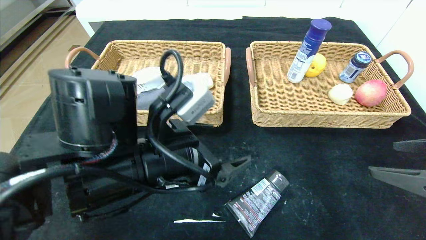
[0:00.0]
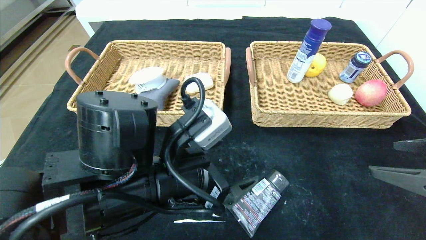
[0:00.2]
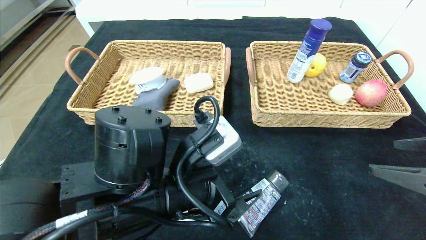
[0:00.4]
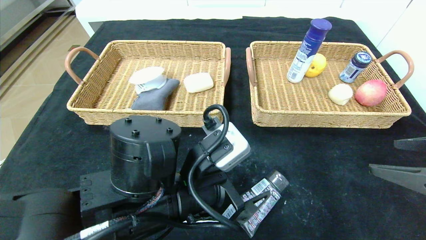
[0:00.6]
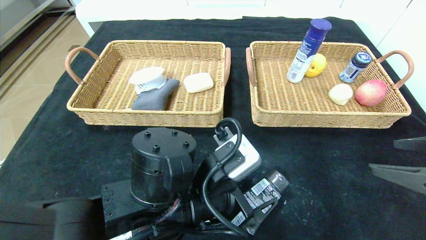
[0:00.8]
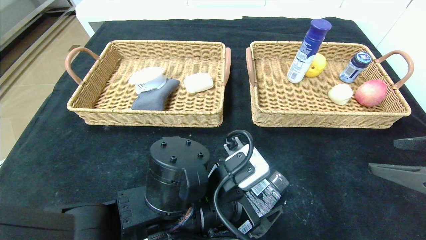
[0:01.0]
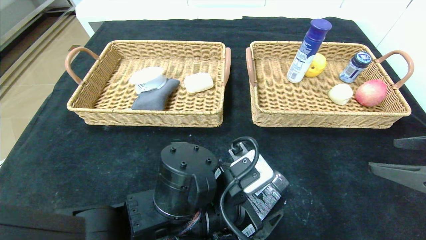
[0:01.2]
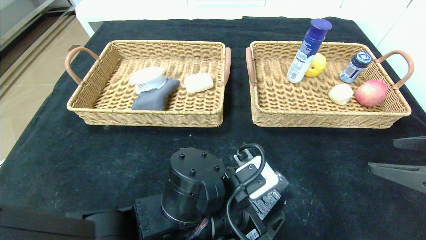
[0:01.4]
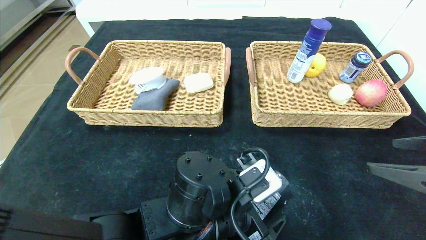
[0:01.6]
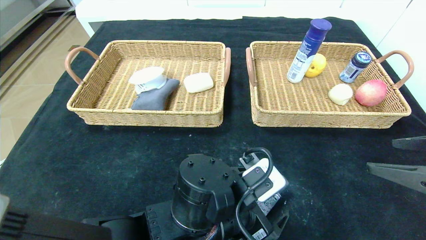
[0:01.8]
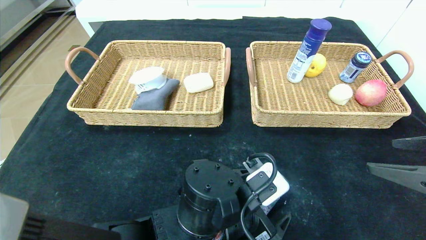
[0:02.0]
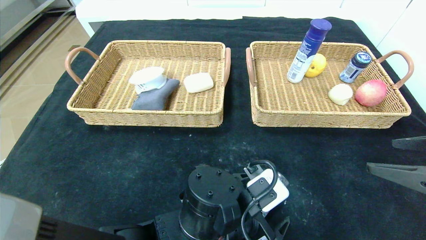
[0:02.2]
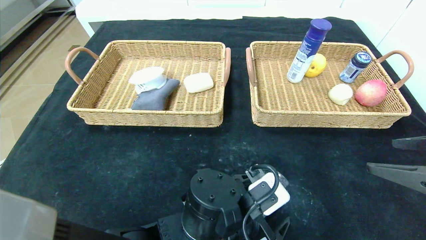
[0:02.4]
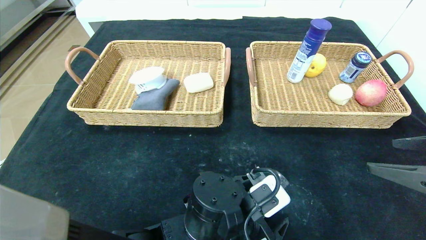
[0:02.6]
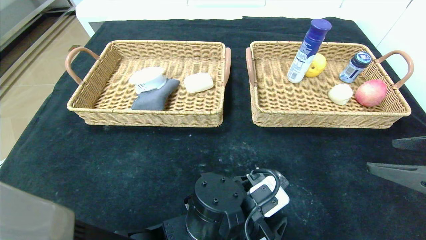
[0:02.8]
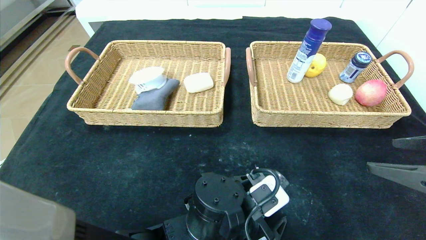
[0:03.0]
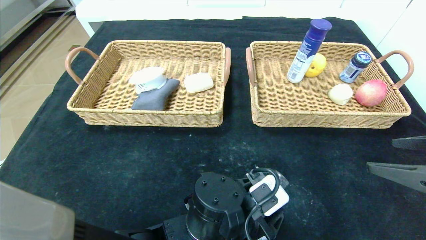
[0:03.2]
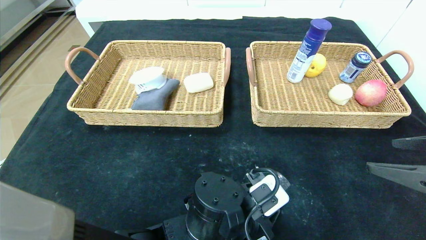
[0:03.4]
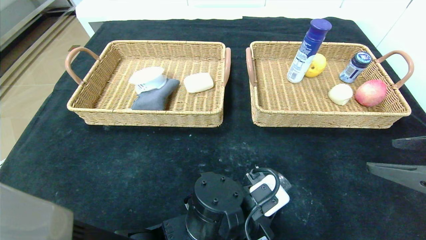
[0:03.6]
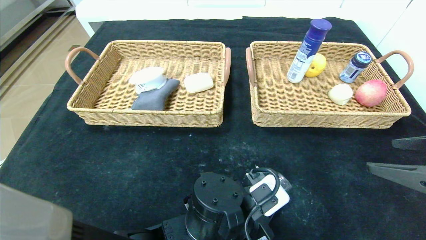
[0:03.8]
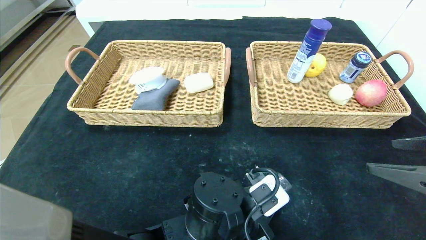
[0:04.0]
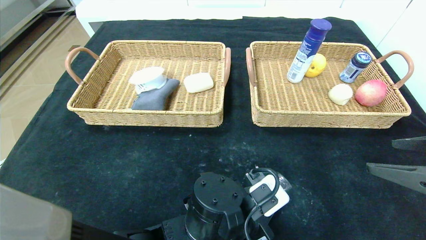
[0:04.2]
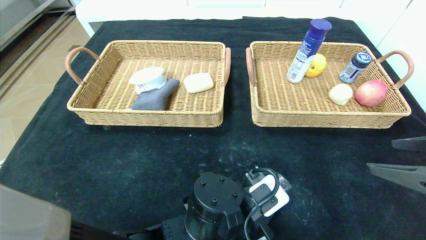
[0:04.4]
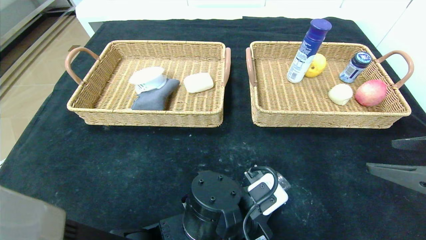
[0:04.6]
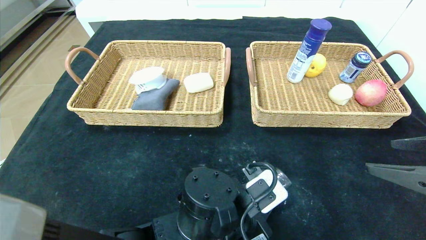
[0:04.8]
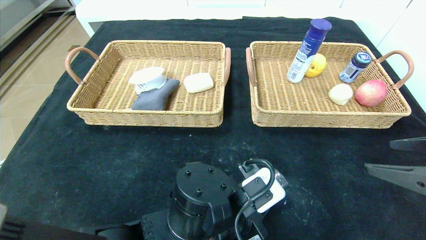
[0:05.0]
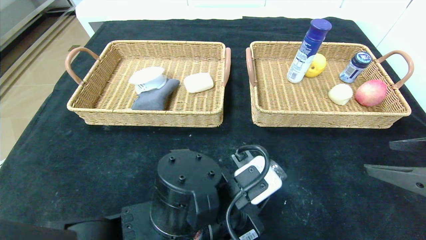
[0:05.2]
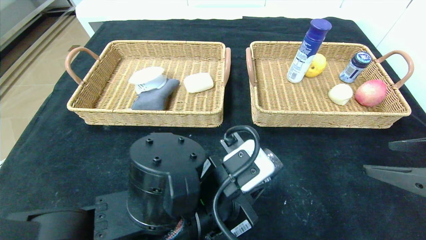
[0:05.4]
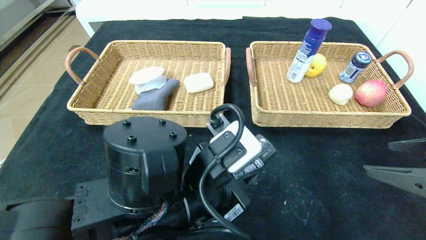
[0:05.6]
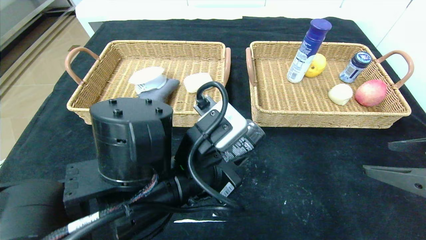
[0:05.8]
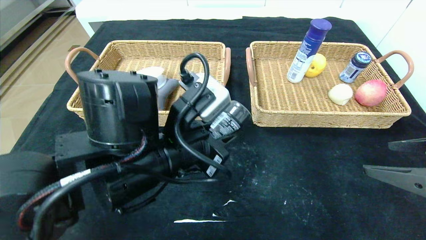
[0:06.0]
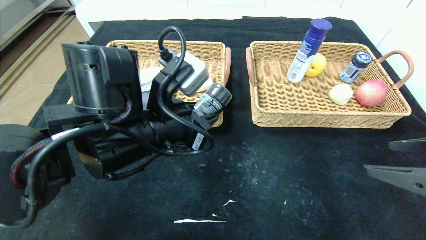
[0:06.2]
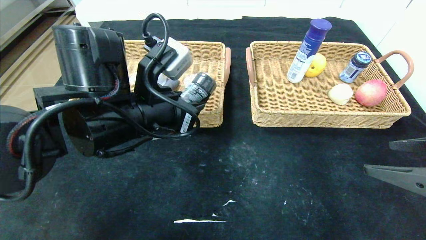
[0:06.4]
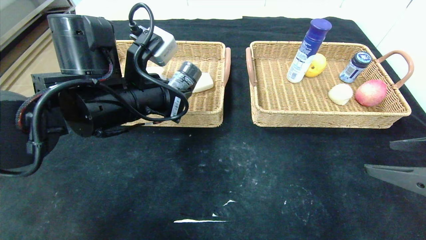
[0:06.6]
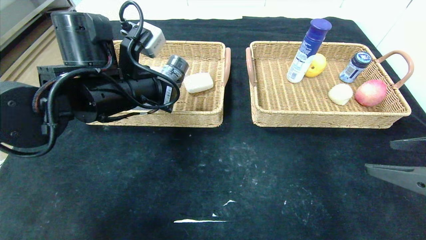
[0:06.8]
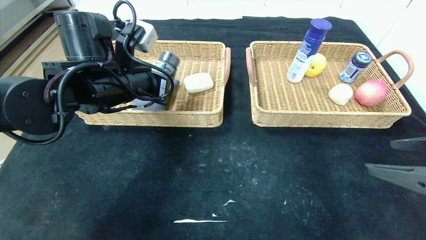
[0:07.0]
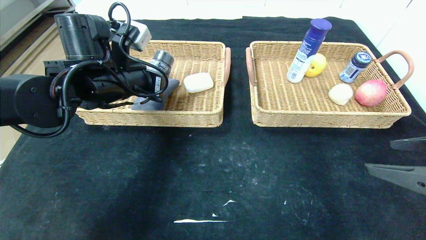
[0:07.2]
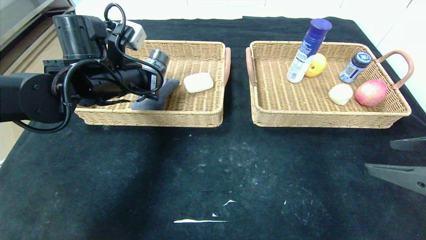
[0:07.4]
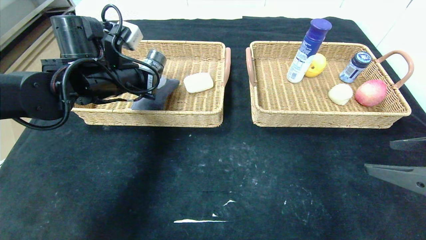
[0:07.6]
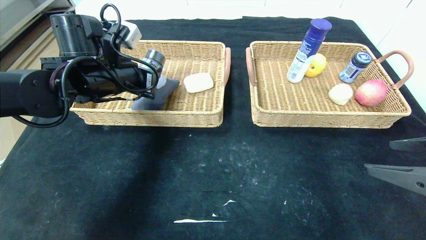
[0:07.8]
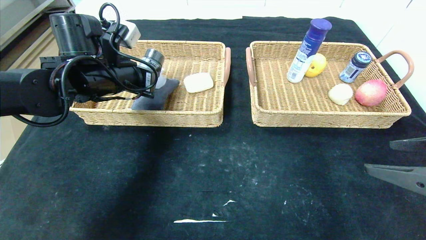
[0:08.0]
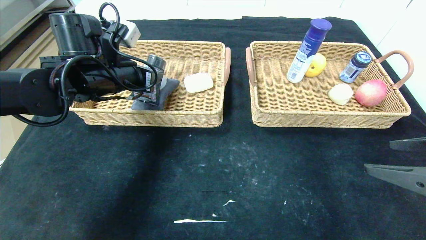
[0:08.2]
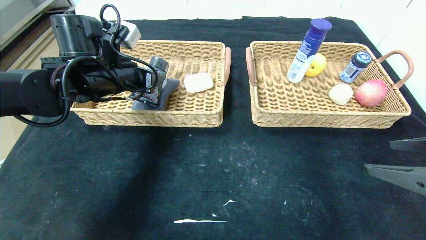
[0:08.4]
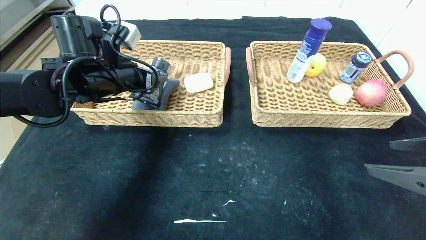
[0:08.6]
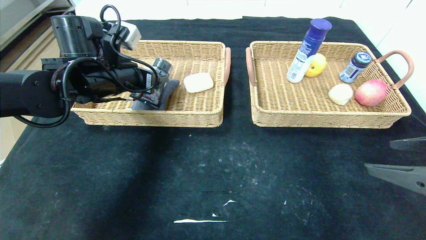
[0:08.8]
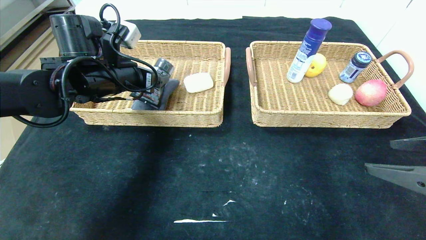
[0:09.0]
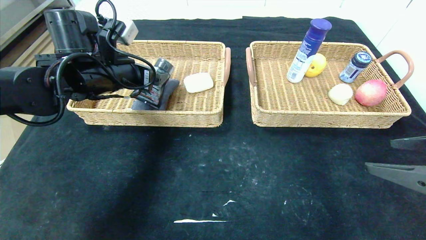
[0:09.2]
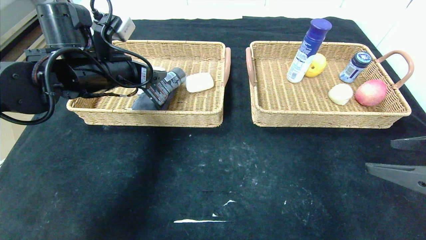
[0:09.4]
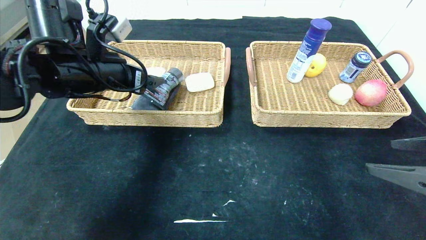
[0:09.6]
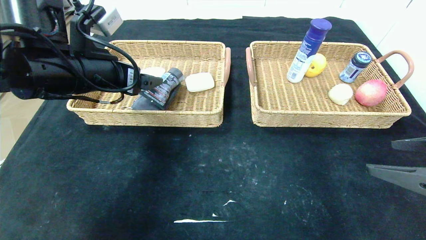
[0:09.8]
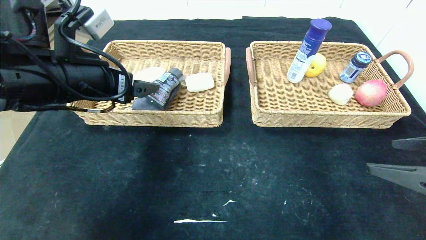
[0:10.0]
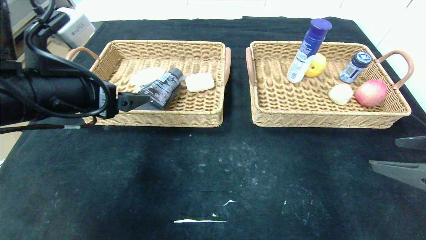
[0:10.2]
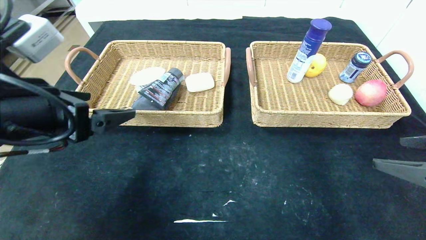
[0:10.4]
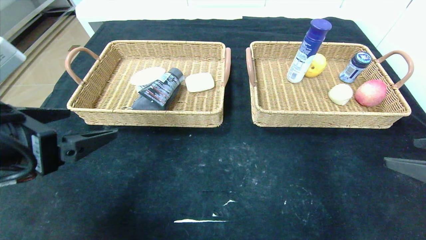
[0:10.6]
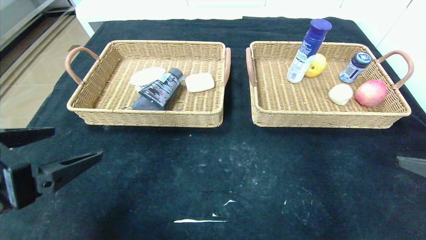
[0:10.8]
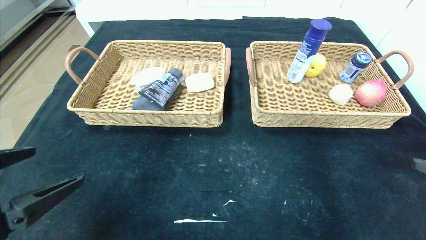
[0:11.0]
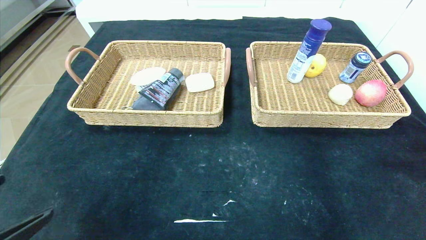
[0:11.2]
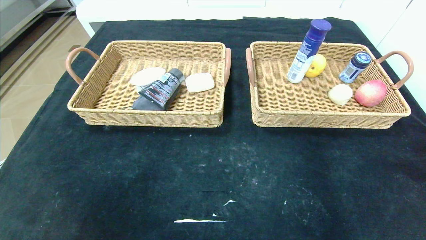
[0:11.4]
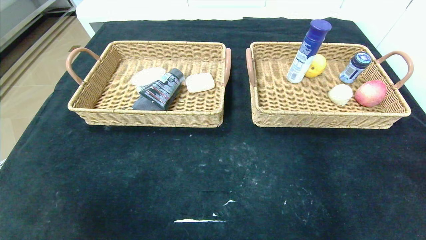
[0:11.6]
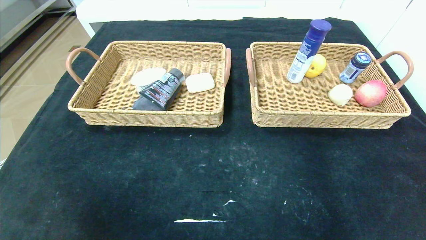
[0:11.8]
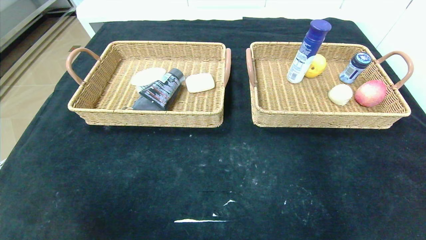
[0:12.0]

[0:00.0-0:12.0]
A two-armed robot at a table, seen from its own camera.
Step, 0:00.2 to 0:10.6: Pick up the soft cleanser and put it in the left basket.
0:00.0 to 0:01.6: The left gripper moves downward and to the right, some 10 cm.
0:01.6 to 0:03.0: The grippers make only small movements.
0:03.0 to 0:04.4: The left gripper closes up.
0:04.4 to 0:06.0: The left gripper moves upward and to the left, approximately 15 cm.
0:06.0 to 0:07.6: The left gripper heads forward and to the left, covering roughly 20 cm.
0:07.6 to 0:09.0: The left gripper opens.
0:09.0 to 0:10.4: The left gripper goes about 20 cm backward.
0:10.4 to 0:12.0: The grippers both shift backward by about 20 cm.
